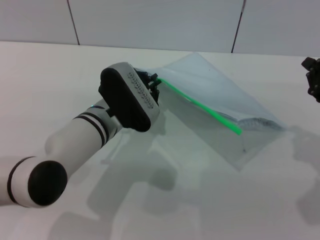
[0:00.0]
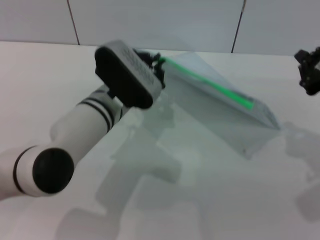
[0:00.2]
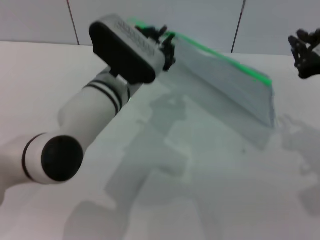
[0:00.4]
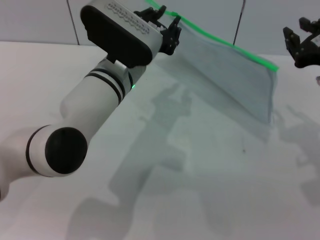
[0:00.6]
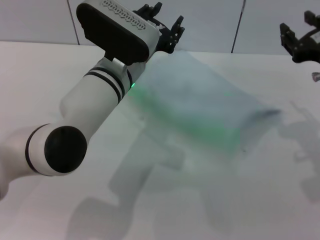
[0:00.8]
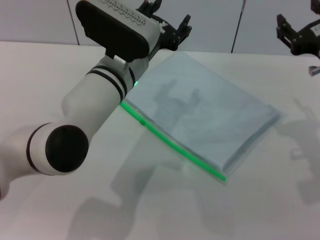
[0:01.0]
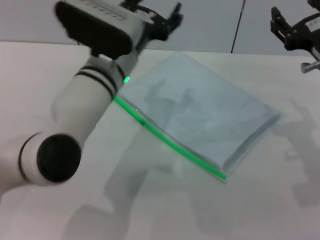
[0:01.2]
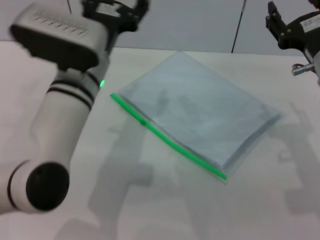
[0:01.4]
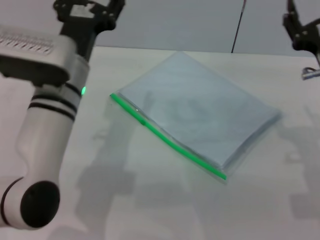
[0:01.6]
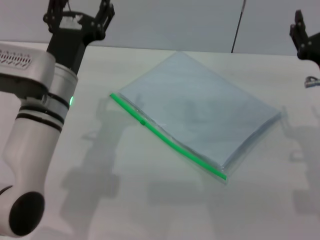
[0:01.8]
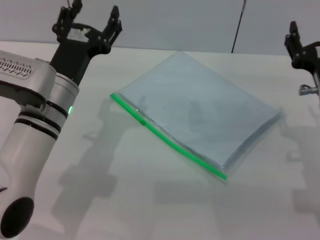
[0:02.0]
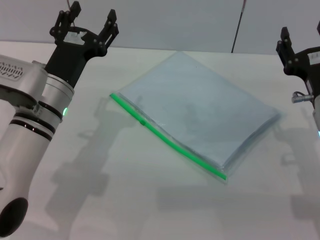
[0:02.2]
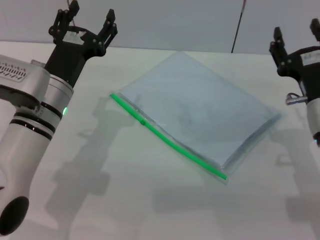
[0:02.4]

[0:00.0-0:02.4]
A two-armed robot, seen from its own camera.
0:00.0 to 0:01.2: The right gripper opens up. The left gripper travels upward by roughly 5 cm, and opens.
0:01.2 to 0:02.4: The right gripper heads downward, covering approximately 10 cm; the left gripper travels to the left and downward by some 10 cm.

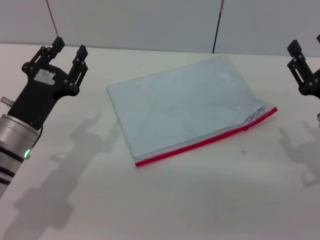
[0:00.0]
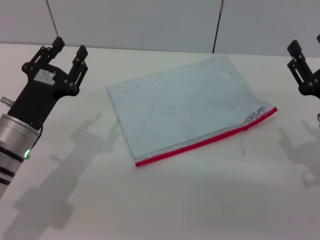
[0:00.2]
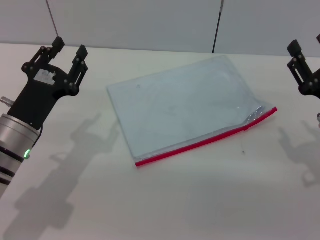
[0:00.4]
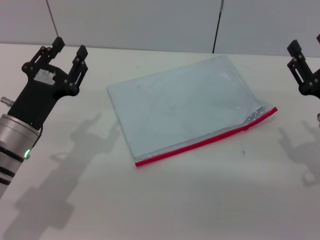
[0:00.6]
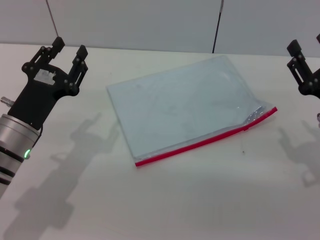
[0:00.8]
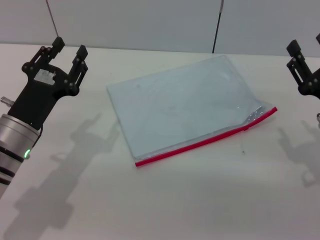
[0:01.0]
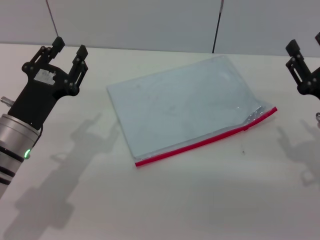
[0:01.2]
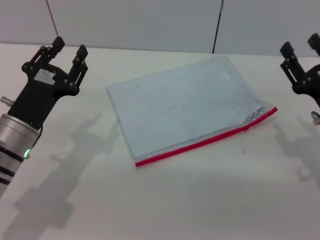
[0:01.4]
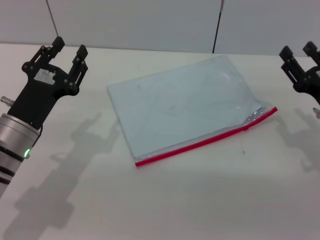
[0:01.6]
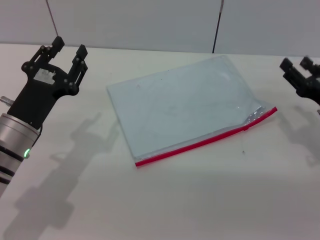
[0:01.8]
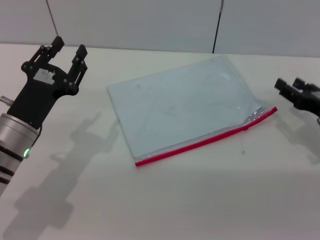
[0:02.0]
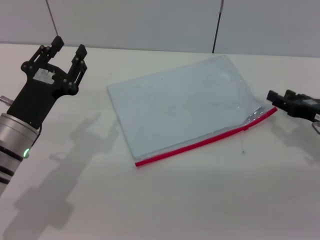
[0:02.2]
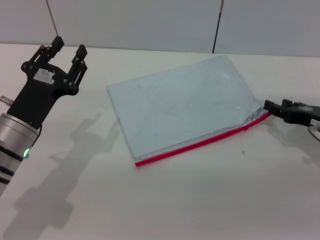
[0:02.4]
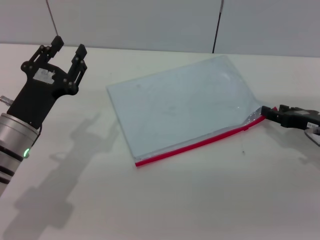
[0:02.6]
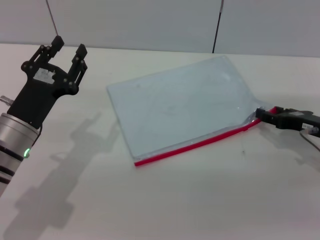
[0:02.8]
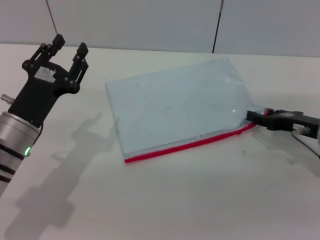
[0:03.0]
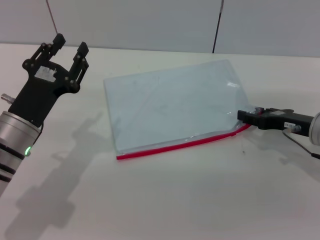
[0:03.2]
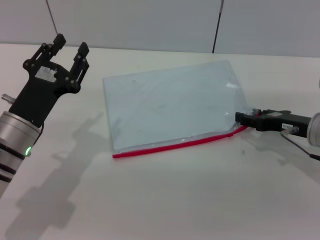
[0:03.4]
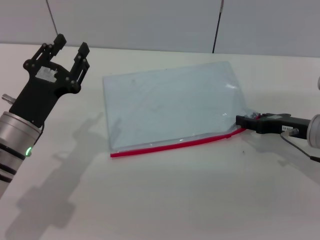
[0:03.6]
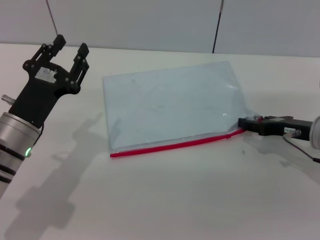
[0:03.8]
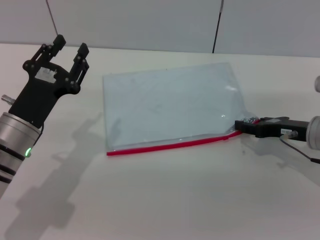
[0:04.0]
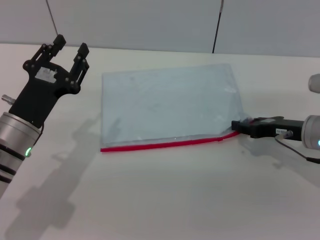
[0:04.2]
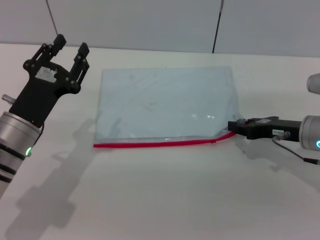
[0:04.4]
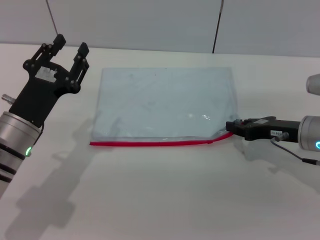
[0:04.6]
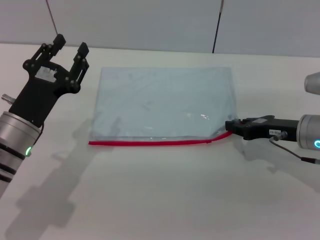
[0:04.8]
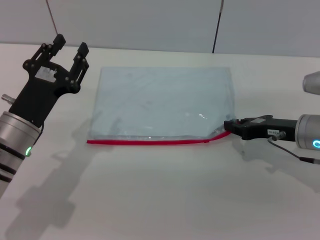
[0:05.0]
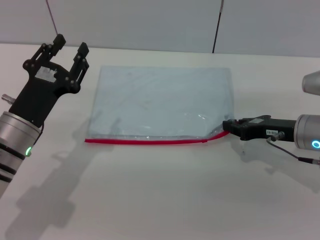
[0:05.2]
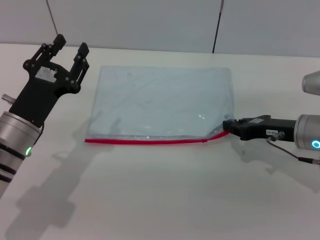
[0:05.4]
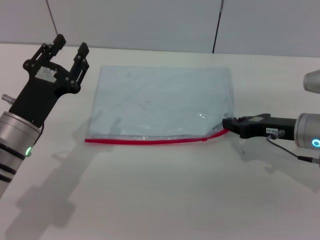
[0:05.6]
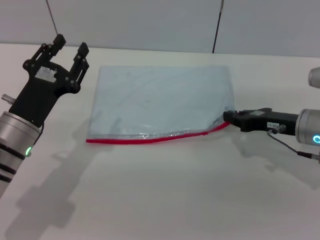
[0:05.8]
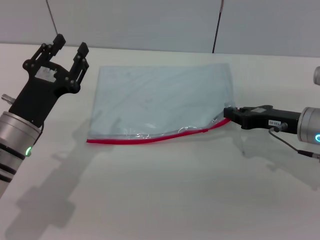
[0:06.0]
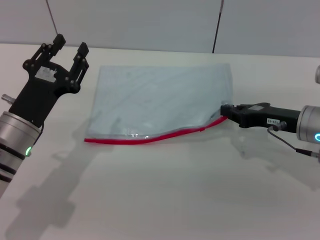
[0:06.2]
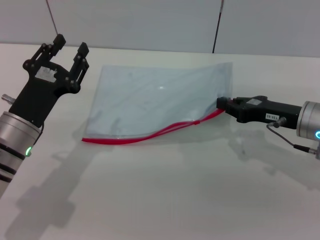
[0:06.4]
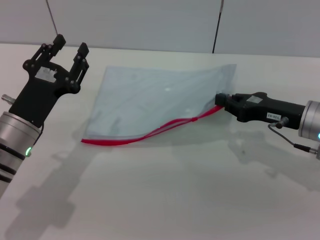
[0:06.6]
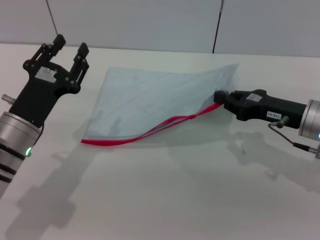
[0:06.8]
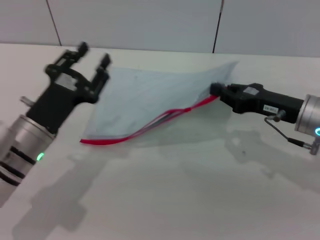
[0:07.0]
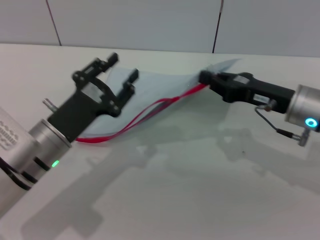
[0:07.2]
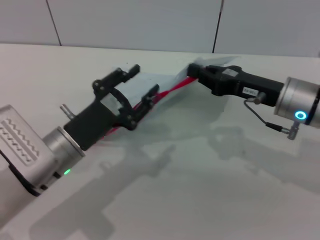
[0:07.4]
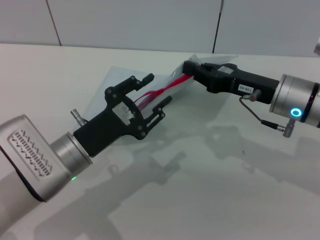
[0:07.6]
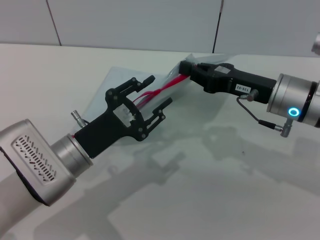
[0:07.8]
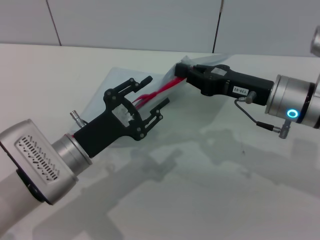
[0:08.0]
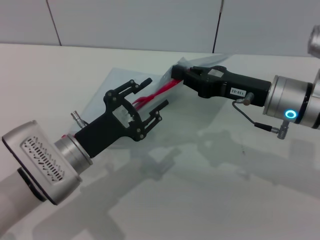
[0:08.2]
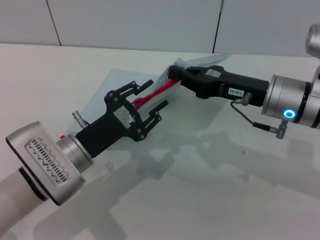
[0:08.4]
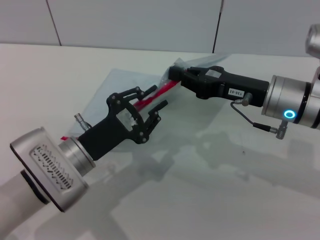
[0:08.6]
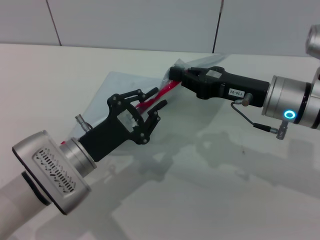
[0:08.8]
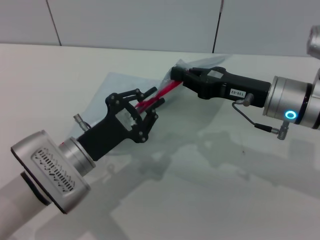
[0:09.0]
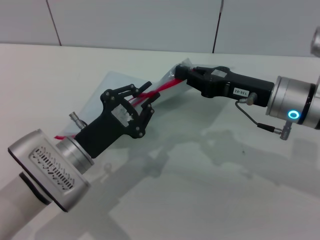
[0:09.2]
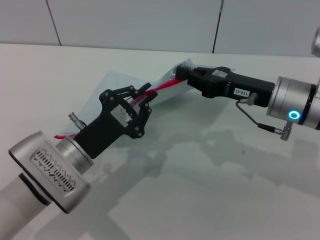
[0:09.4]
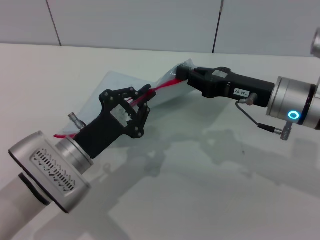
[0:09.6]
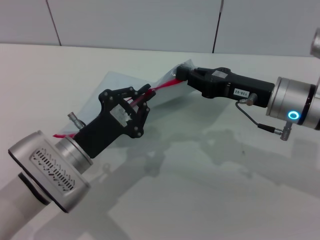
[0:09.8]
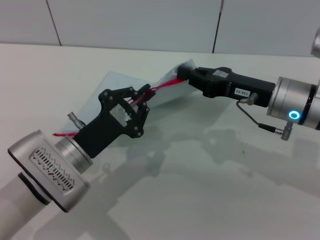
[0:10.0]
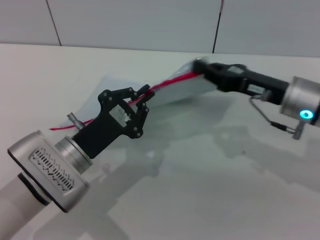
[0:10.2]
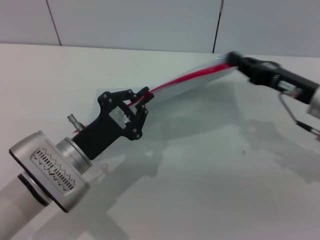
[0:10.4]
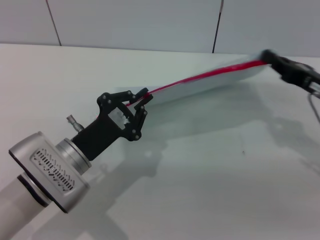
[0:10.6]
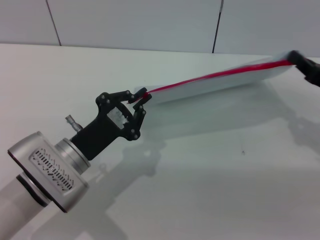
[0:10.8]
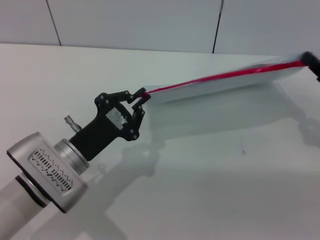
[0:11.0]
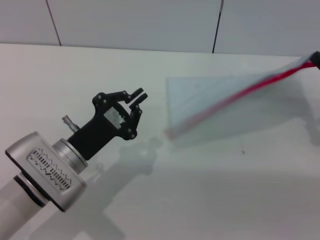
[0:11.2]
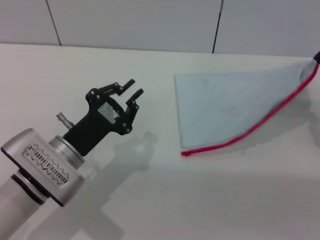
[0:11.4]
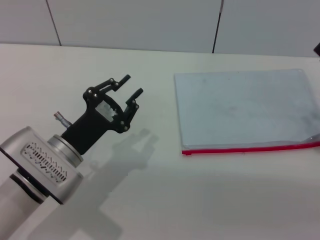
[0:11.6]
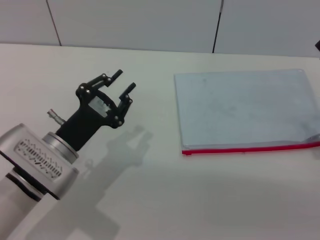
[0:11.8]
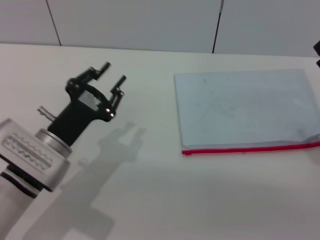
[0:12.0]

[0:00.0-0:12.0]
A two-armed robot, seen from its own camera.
Step, 0:00.0 to 0:07.0: Pick up the transparent plastic bag with the right gripper.
Step, 0:07.2 to 0:11.6: Pulling up the zipper on the transparent plastic bag with the left gripper to close it.
0:00.0 to 0:01.6: The grippers move only a little.
0:03.0 to 0:04.4: The grippers stay close to where they were, moving slightly.
0:04.4 to 0:06.0: The right gripper closes.
0:06.0 to 0:07.6: The right gripper heads to the left, covering about 5 cm; the left gripper goes about 5 cm to the right.
0:07.6 to 0:09.0: The left gripper closes.
0:09.0 to 0:10.4: The right gripper heads to the right, covering about 5 cm.
0:10.4 to 0:12.0: The left gripper opens its fingers. Meanwhile the right gripper moves backward and to the right, roughly 10 cm, and opens.

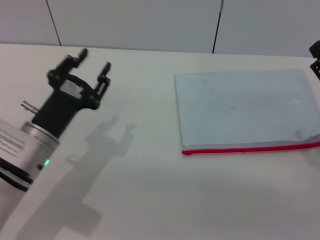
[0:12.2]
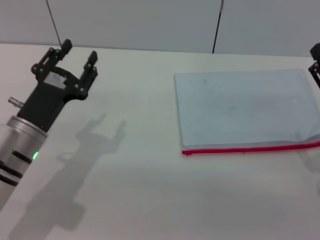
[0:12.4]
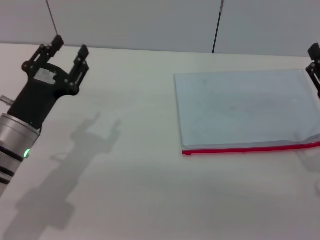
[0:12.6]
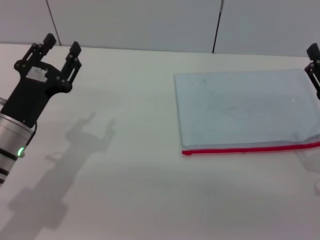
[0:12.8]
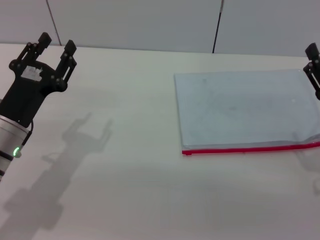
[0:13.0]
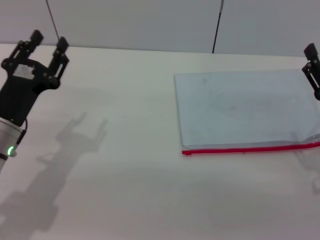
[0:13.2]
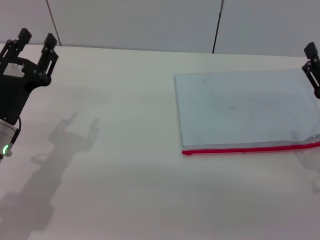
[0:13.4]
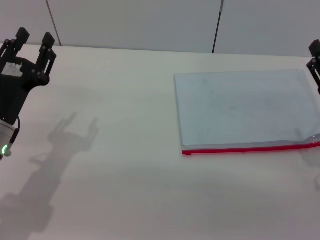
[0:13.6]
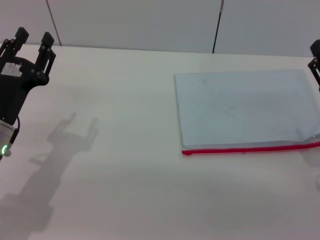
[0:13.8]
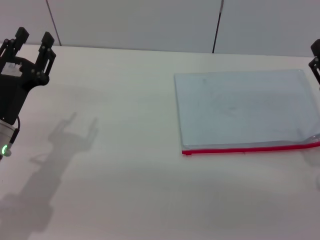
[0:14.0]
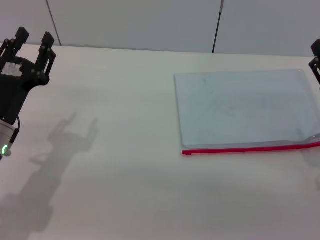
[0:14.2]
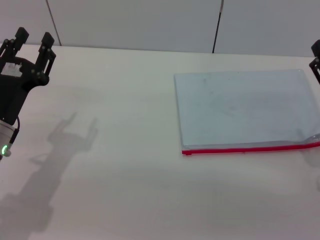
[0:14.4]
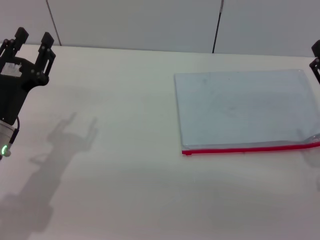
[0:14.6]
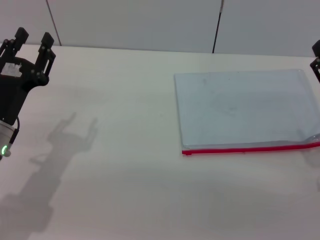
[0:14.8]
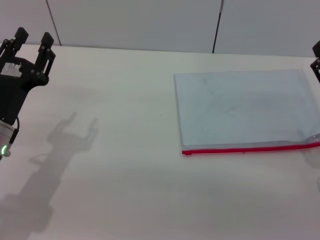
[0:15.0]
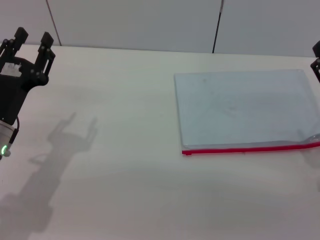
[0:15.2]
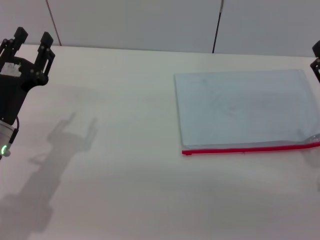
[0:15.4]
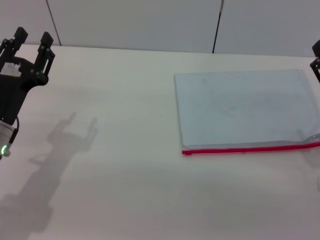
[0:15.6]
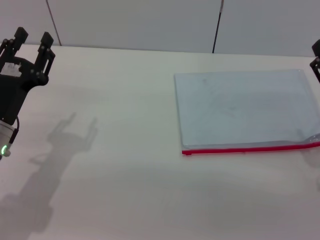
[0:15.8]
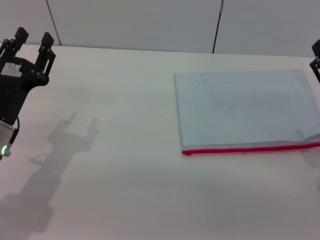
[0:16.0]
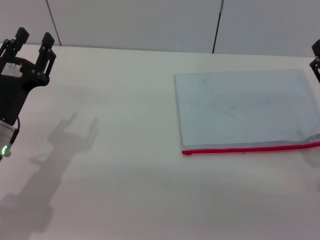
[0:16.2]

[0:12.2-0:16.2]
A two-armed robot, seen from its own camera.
Step, 0:12.2 to 0:13.6: Place the transparent plastic bag.
0:12.2 to 0:13.6: The left gripper changes place by some 5 cm, and opens its fingers.
0:13.6 to 0:16.2: Both grippers stay about where they are.
